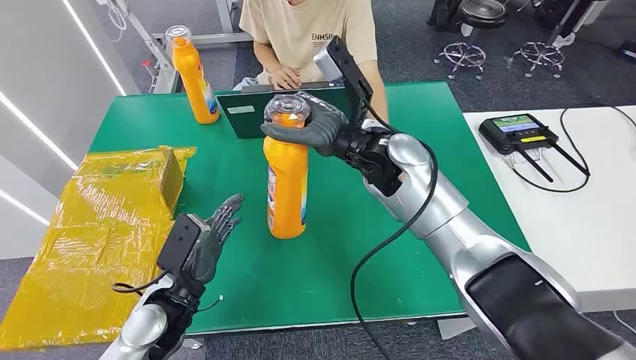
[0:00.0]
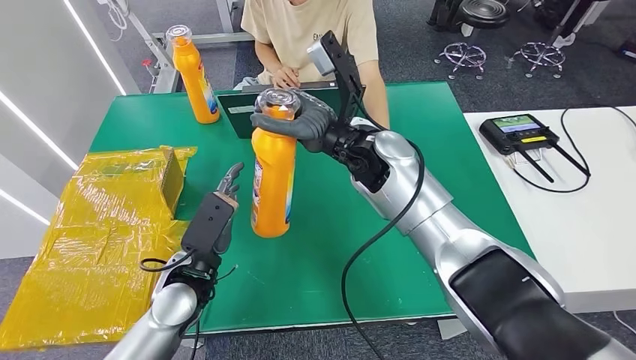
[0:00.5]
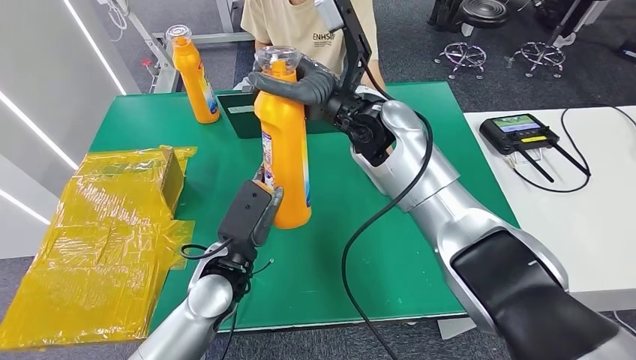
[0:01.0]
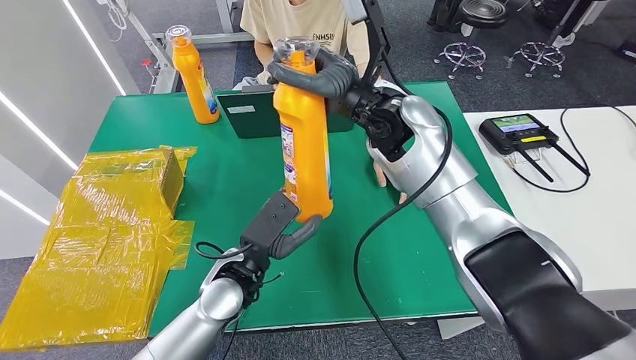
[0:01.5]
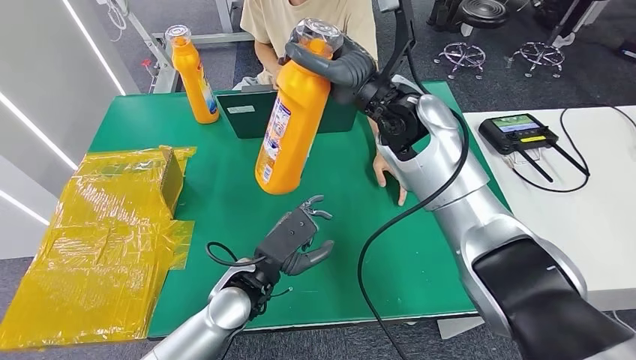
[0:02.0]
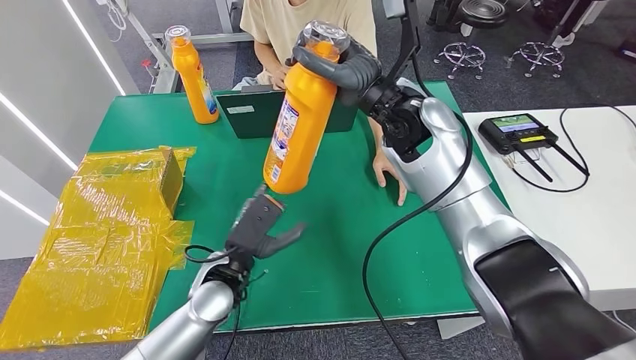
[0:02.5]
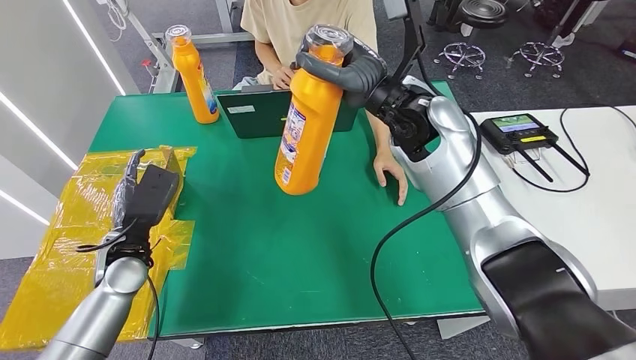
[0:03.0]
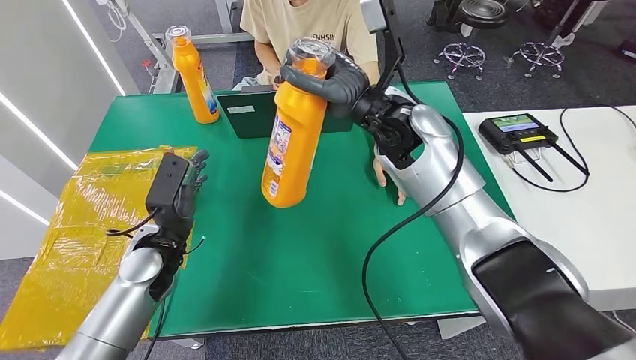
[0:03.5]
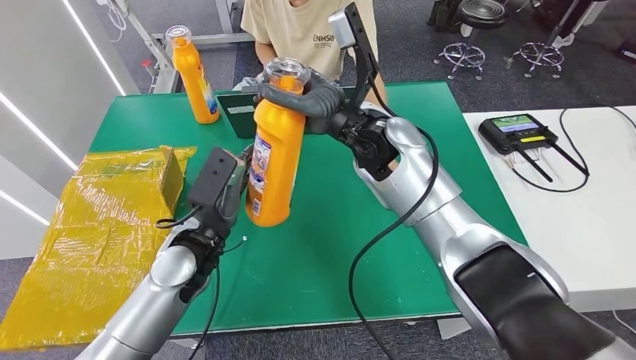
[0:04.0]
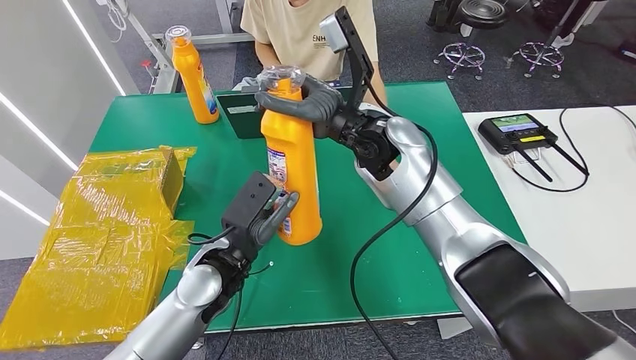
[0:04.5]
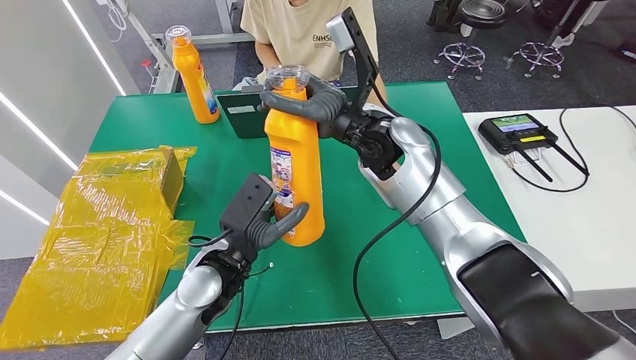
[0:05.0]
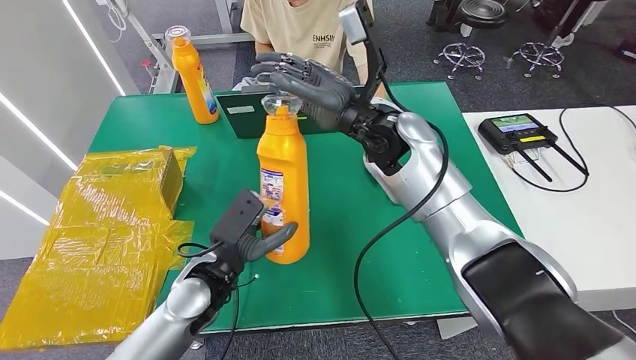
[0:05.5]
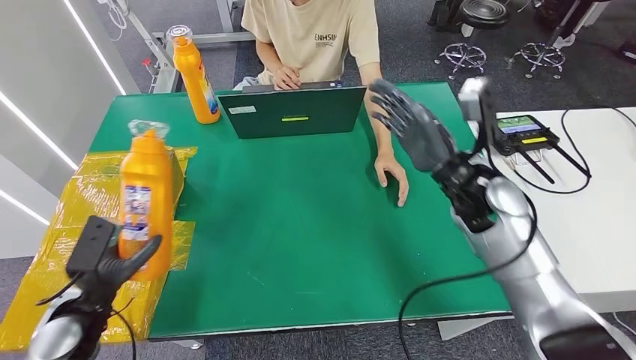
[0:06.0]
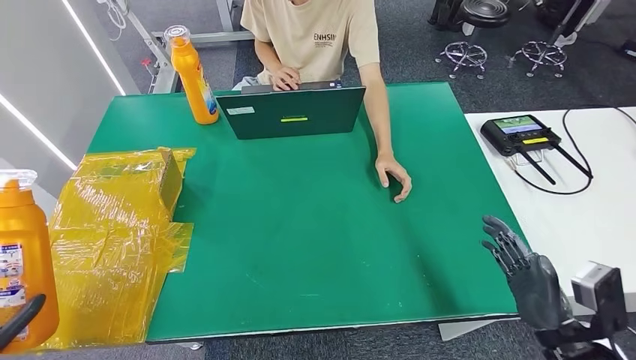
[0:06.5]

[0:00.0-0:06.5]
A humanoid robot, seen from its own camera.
Step, 0:00.0 to 0:03.5: Pick up the bottle from the table.
Step, 0:04.0 to 0:06.5: Turn the bottle to the front side.

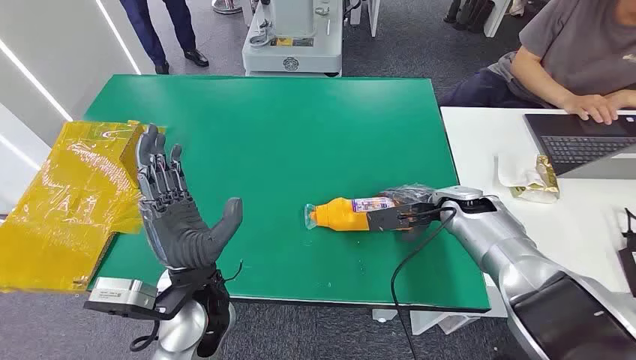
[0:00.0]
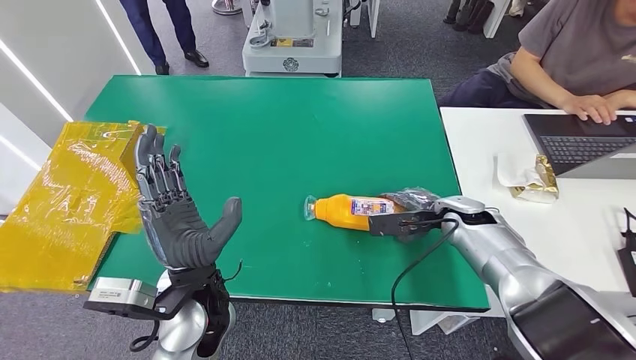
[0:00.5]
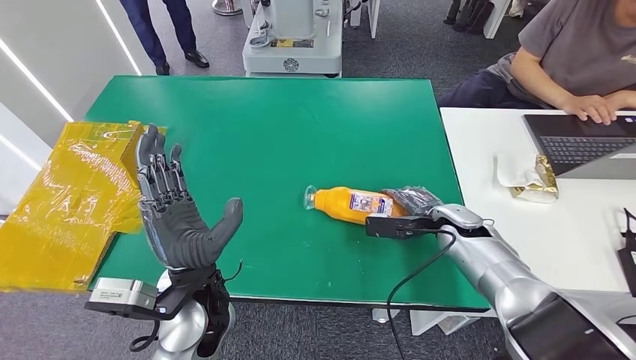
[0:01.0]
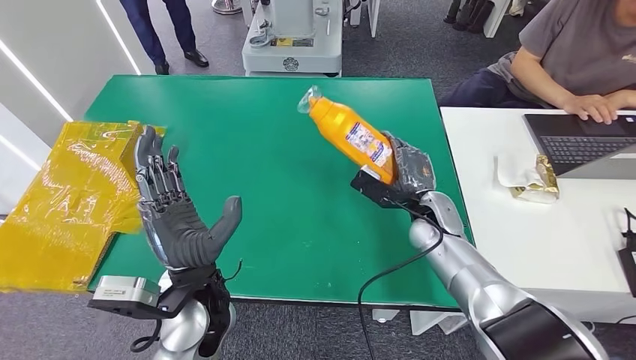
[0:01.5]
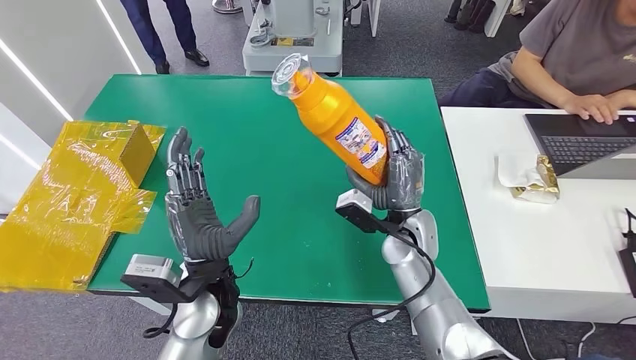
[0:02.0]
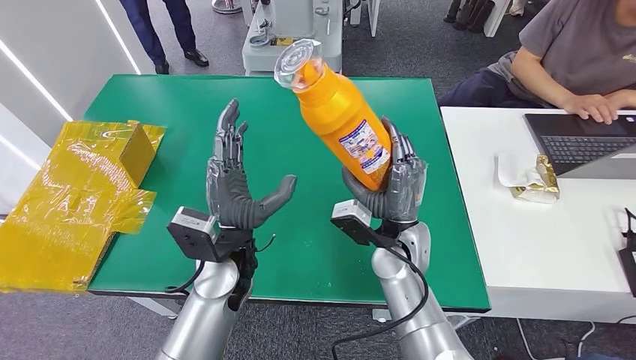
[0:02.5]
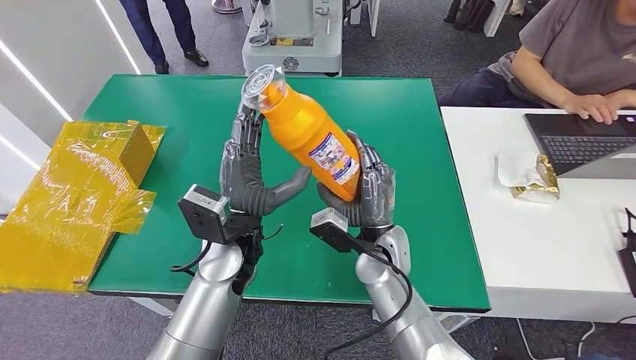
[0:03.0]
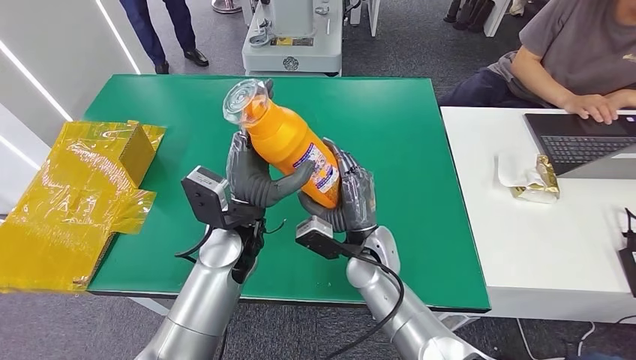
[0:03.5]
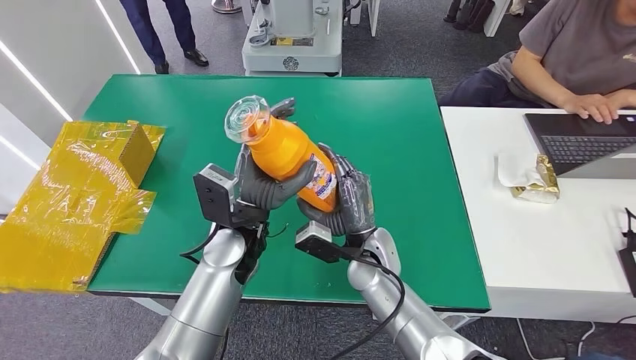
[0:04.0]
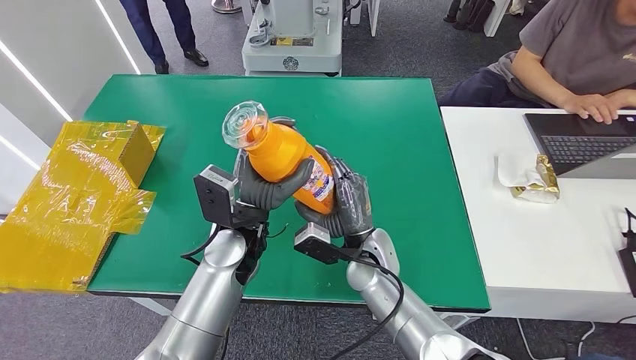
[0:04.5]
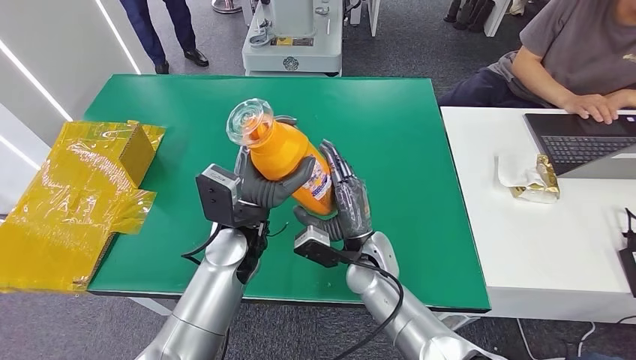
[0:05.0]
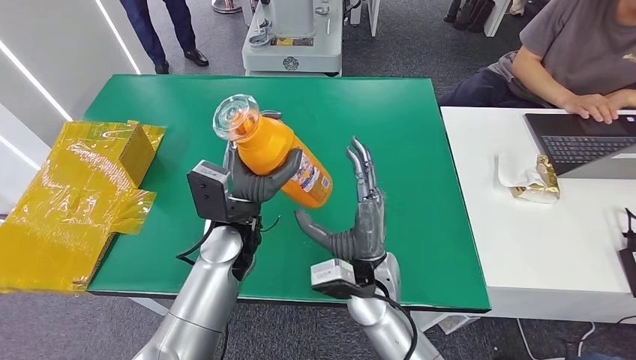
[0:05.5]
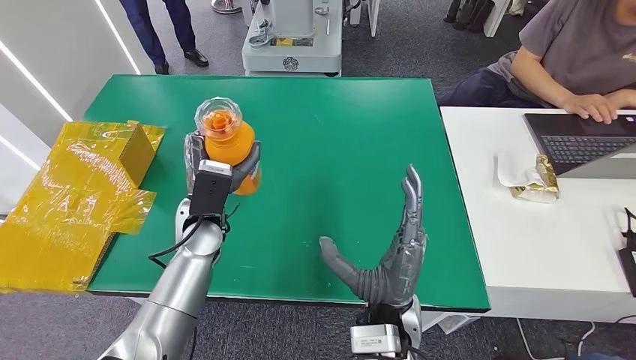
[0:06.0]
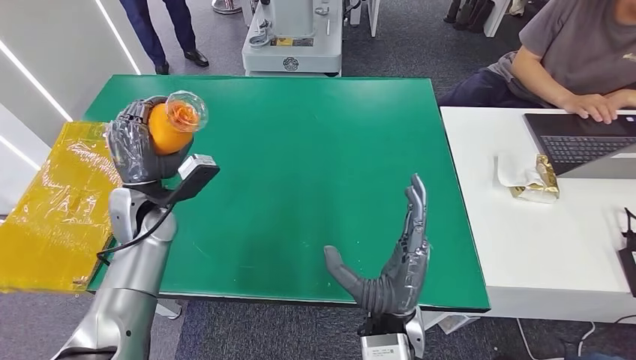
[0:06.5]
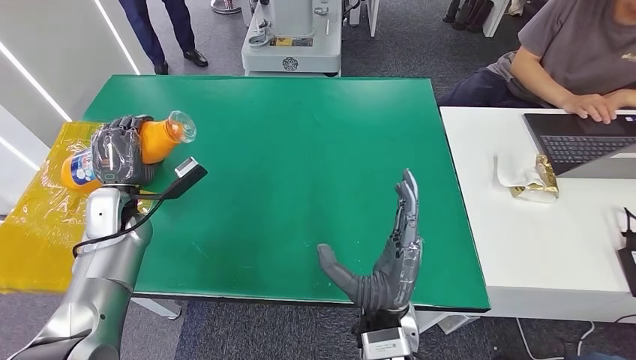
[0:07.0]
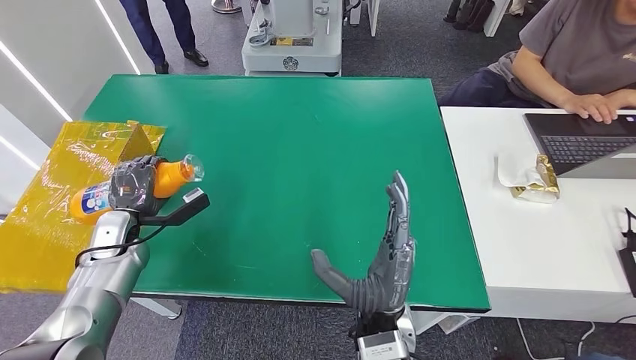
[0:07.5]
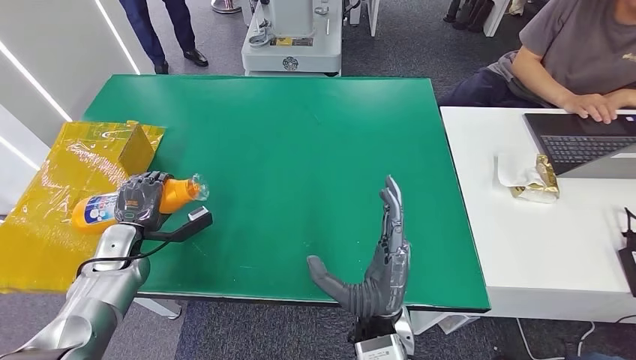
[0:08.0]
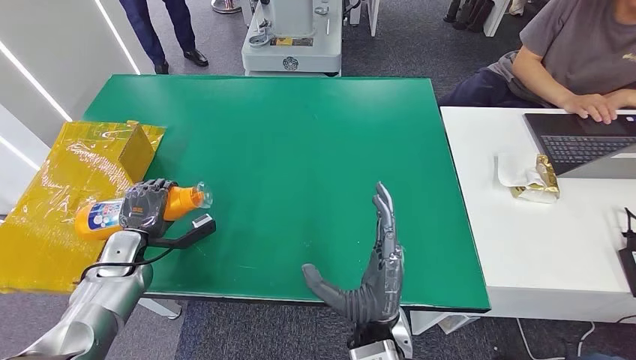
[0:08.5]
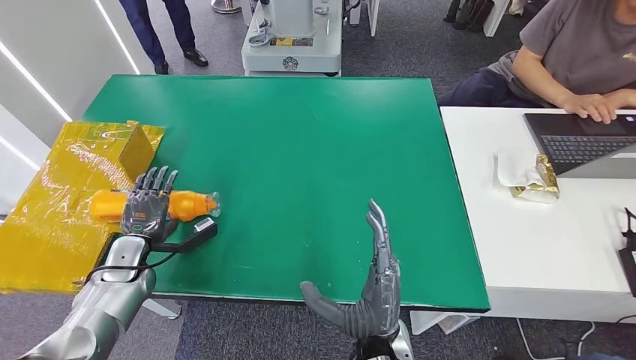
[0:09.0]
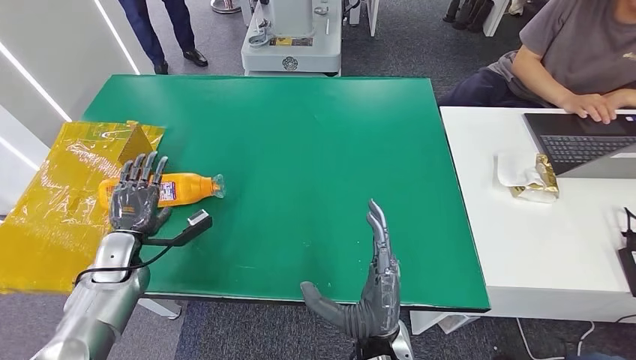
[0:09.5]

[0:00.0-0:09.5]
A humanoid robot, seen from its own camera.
Step, 0:00.0 to 0:01.5: Pick up the bottle from the table.
Step, 0:02.0 to 0:09.5: Turn the bottle to the front side.
0:04.0 to 0:05.5: The right hand heads backward, covering approximately 5 cm.
0:05.5 to 0:07.5: The left hand is displaced to the left by approximately 25 cm. The right hand moves backward, about 10 cm.
0:07.5 to 0:09.5: The hands move only a little.
